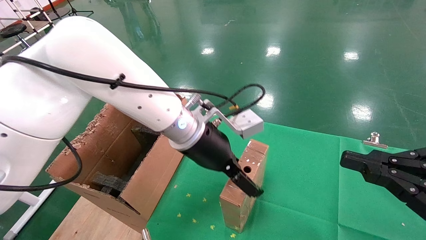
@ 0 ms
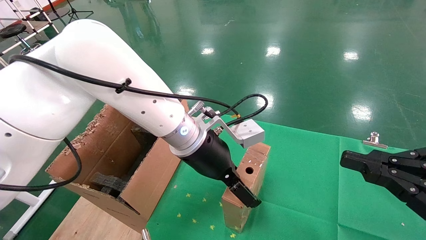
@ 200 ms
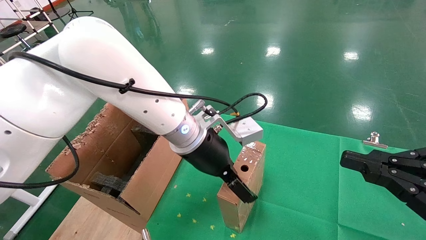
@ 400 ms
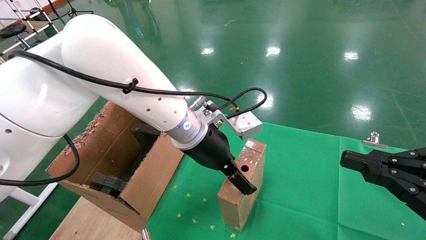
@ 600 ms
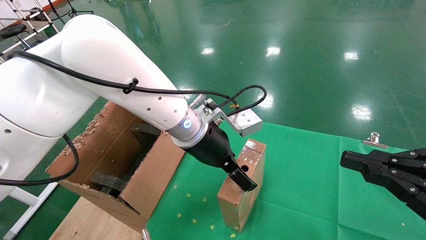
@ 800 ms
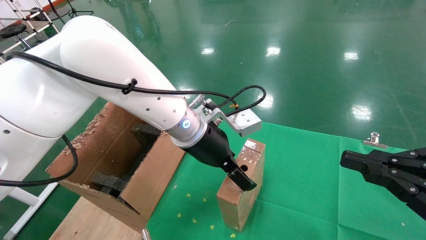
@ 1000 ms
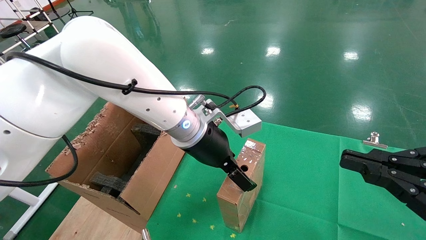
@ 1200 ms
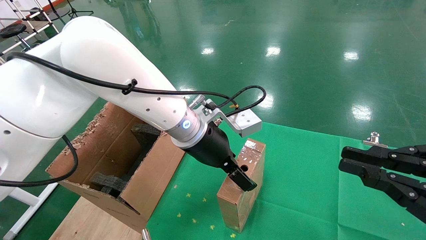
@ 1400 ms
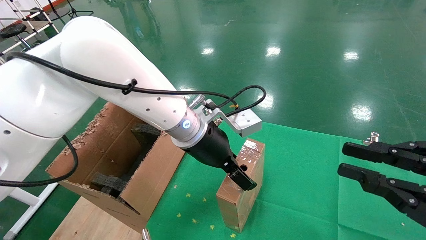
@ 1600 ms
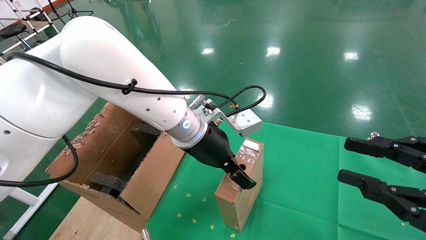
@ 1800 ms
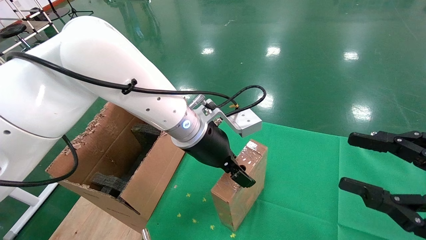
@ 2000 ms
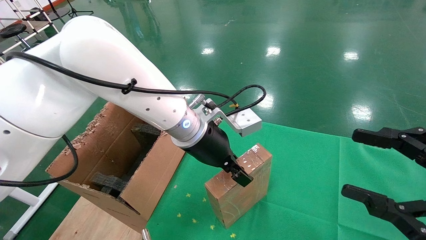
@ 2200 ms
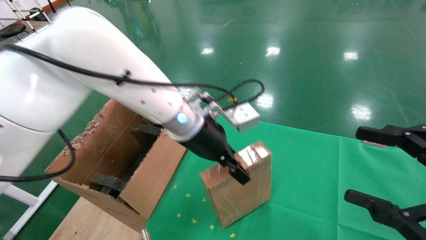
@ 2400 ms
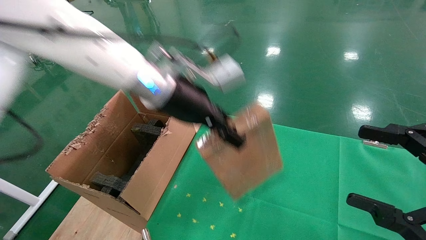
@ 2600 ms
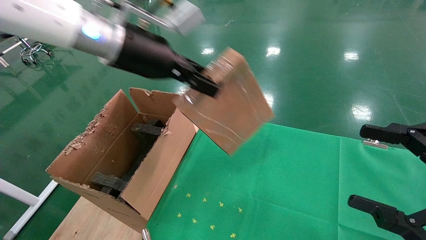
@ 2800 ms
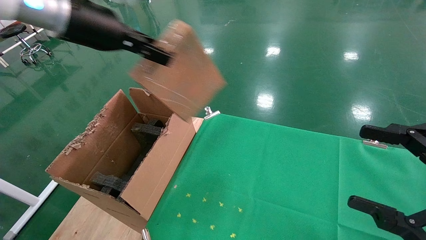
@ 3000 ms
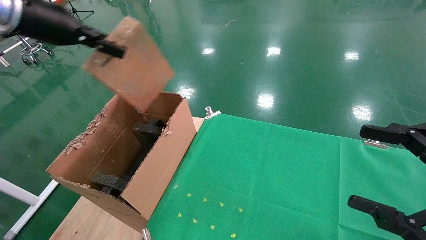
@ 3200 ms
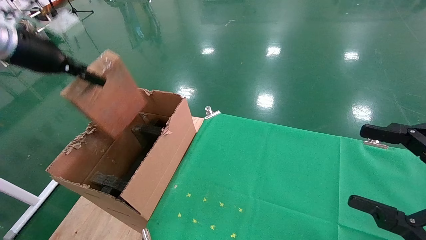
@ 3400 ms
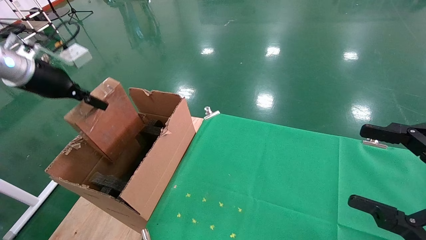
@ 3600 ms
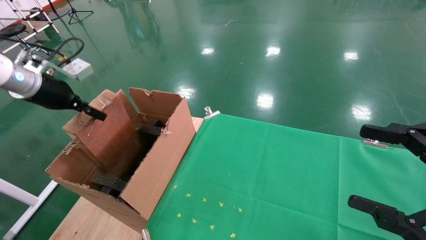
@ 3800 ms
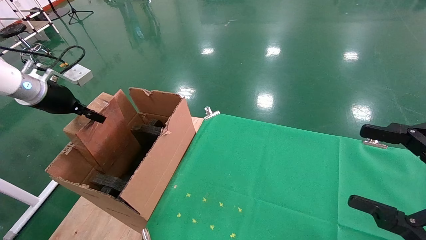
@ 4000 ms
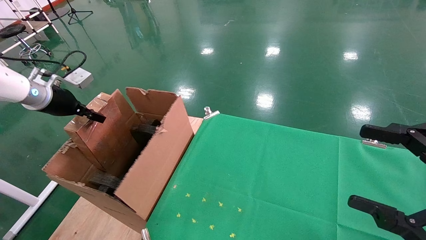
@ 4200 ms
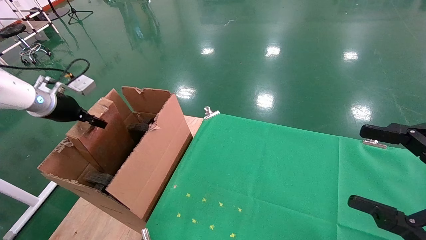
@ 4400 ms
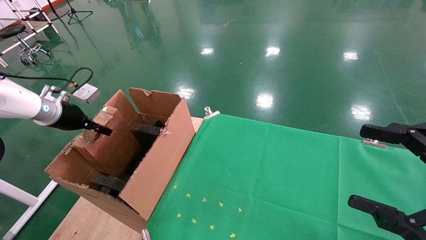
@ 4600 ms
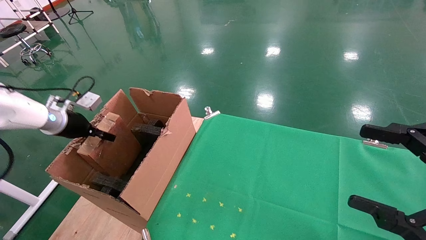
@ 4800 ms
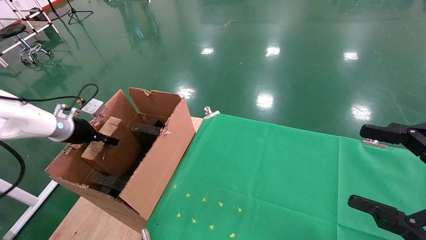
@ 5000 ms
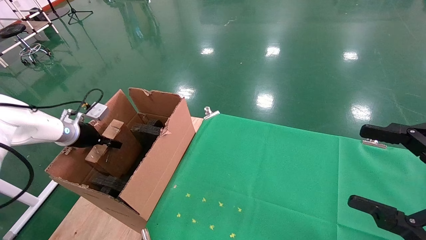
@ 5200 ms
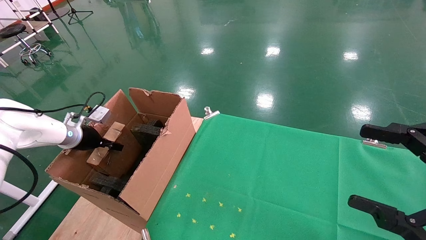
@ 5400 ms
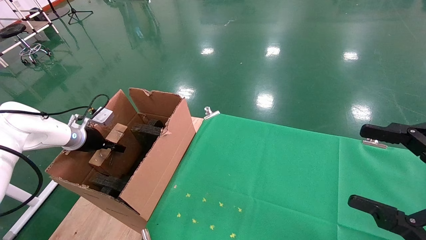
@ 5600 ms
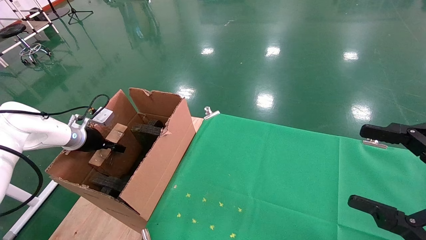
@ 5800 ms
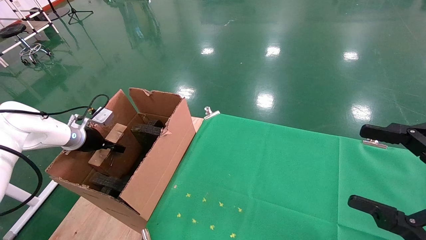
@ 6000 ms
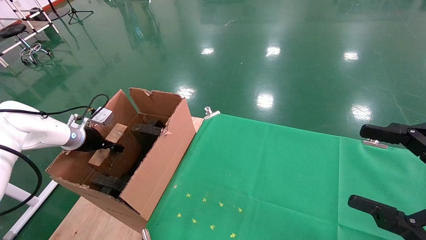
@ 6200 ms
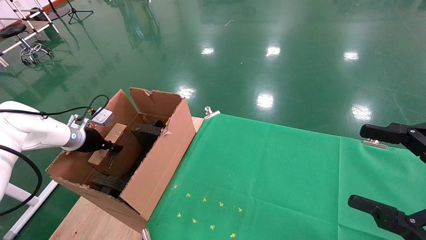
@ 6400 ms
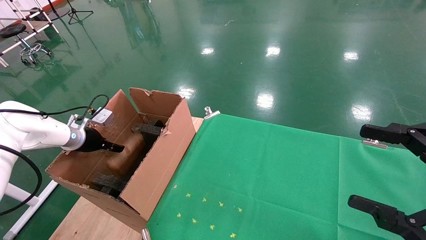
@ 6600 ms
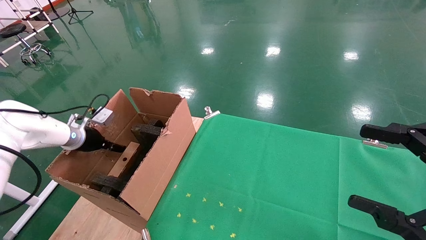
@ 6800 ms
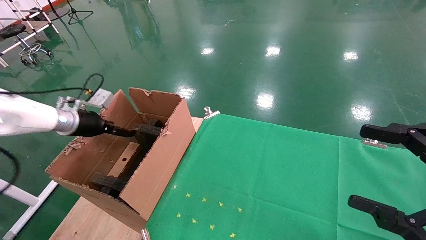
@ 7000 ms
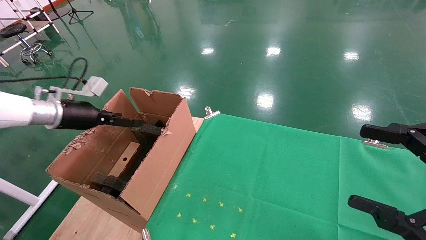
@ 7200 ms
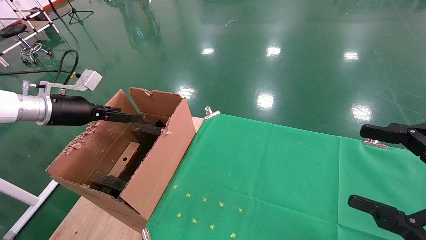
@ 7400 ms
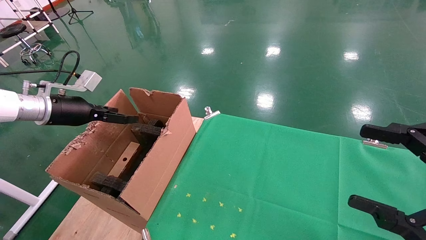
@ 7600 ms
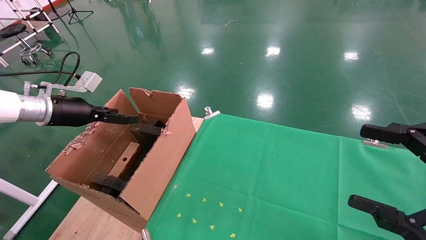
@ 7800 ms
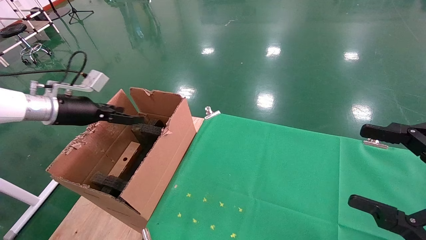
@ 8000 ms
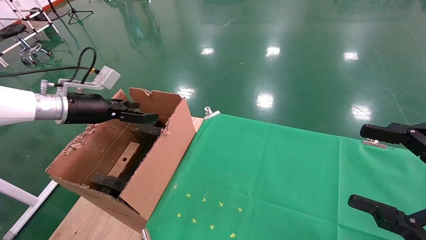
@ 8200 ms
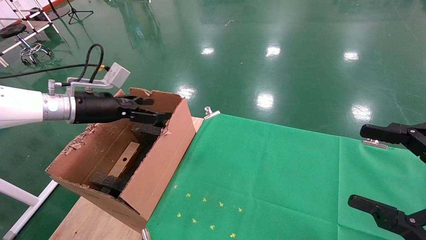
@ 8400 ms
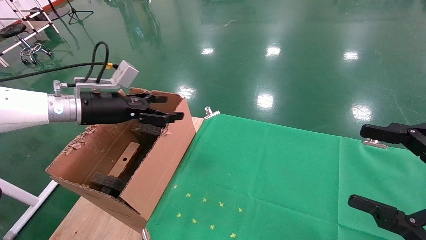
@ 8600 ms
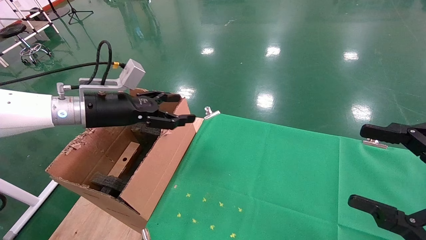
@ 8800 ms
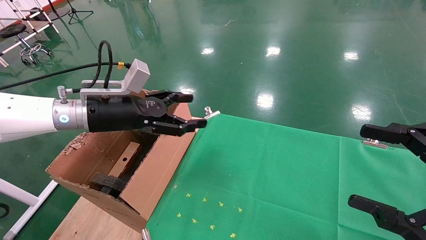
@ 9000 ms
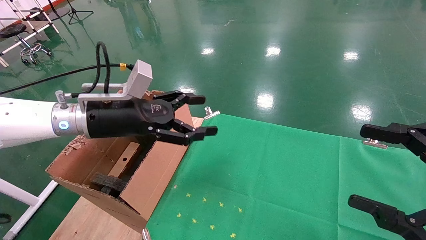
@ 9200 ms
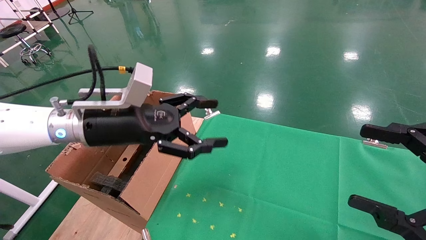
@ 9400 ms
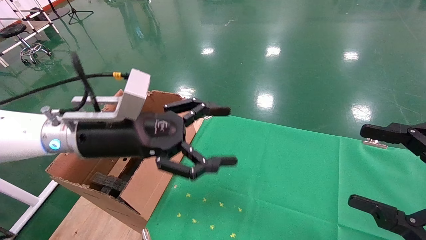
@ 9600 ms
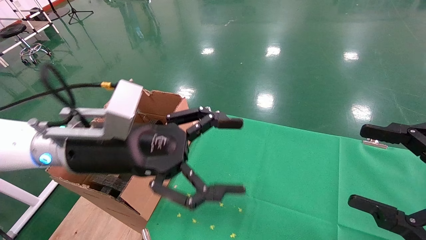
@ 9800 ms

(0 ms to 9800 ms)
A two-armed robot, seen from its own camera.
Task of the whole recording: using a robotic arm to pick up a cardboard box and palace it the carton.
Step, 0 ms - 2200 ms: Pick up the mouse and the power cord paper box.
Step, 2400 ms - 7800 ms: Place the mouse and the power cord paper box into the container.
0 ms - 1400 ms: The grippers move only a little.
1400 ms - 2800 ms: The right gripper opens; the left gripper shifts some 20 cm upward and to the left, and closes its fingers.
2800 ms - 4200 ms: The left gripper travels to the left and downward by roughly 30 cm.
4200 ms - 5600 ms: The left gripper travels downward by some 15 cm.
5600 ms - 7000 ms: The left gripper shifts some 5 cm upward, and opens up.
7000 ms - 8400 ms: The left gripper shifts approximately 10 cm to the right and upward.
8400 ms - 9800 ms: The left gripper goes about 20 cm to the right and backward.

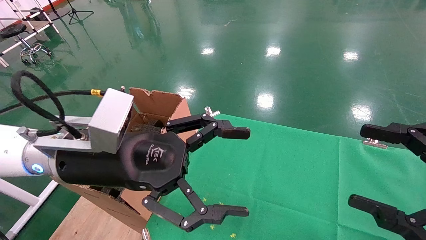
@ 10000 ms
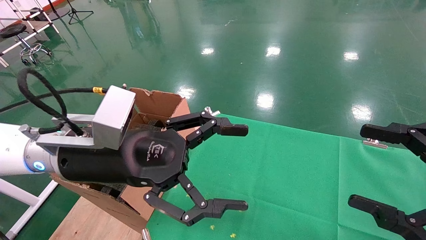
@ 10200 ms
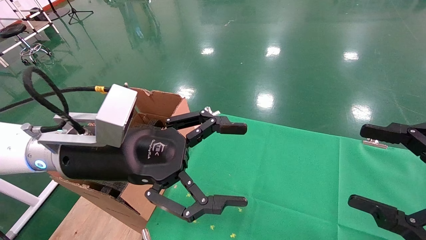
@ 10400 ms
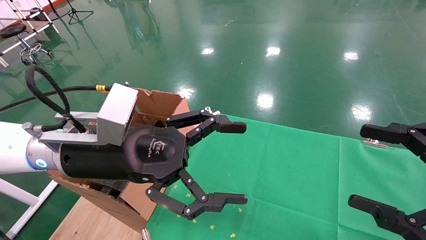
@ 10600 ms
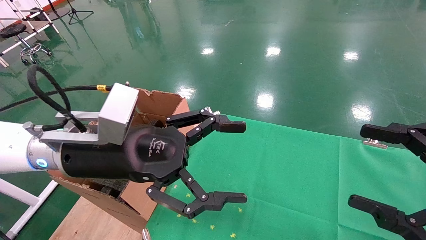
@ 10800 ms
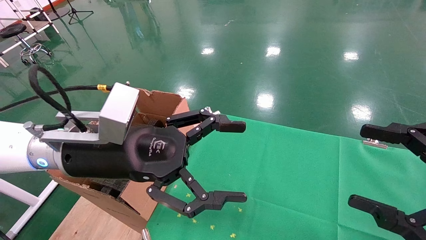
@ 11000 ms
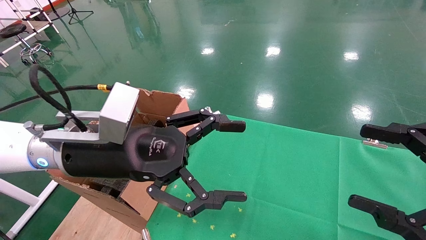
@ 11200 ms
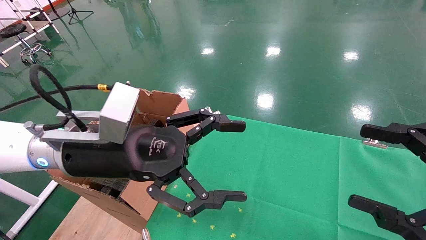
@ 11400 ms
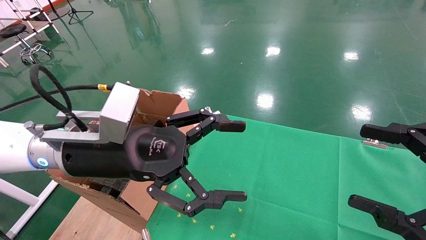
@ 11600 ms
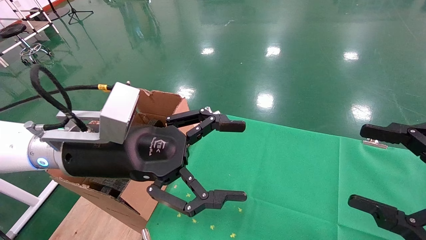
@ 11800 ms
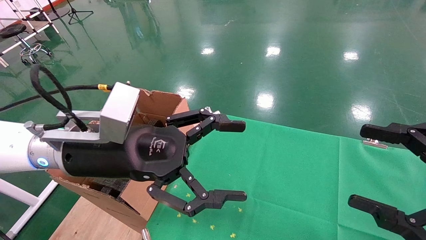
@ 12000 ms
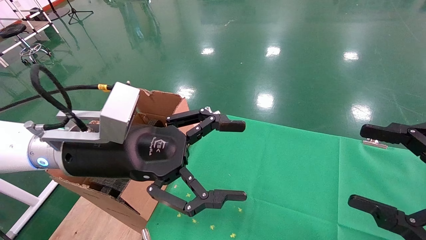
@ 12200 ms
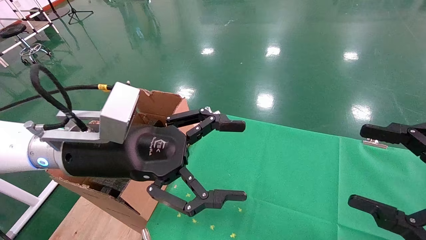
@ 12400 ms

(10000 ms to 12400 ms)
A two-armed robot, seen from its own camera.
Task of the whole recording: using a robotic arm to pick up a cardboard box and palace it the carton.
10000 ms - 12400 ms: Both grippers stay about where they are.
